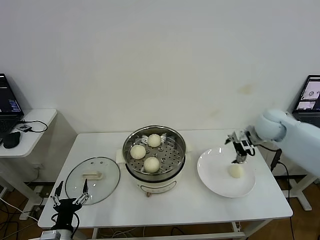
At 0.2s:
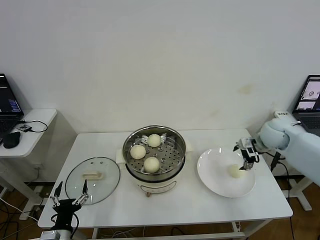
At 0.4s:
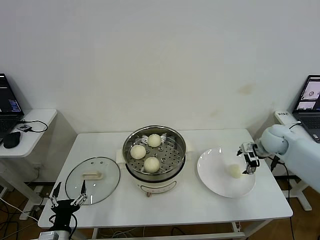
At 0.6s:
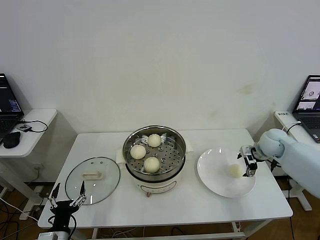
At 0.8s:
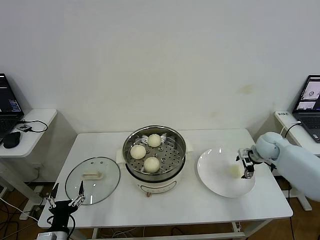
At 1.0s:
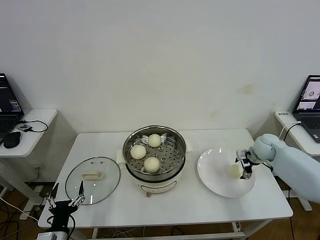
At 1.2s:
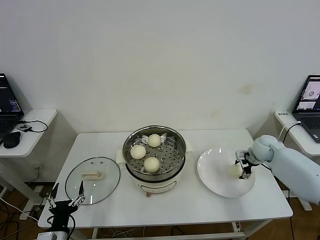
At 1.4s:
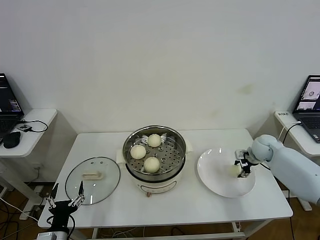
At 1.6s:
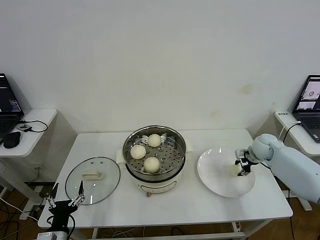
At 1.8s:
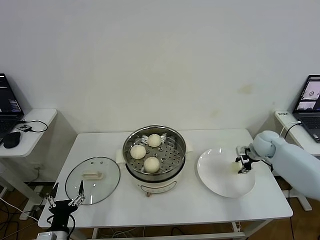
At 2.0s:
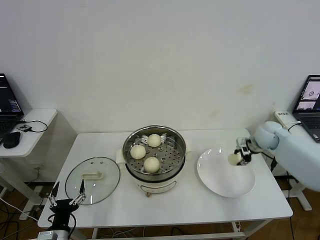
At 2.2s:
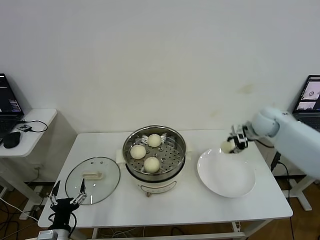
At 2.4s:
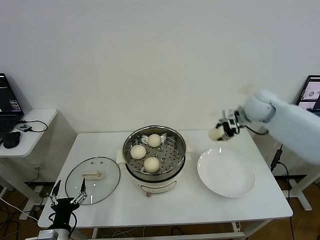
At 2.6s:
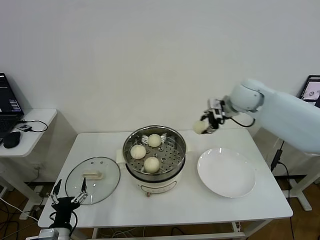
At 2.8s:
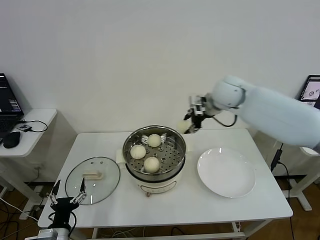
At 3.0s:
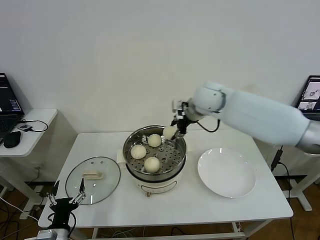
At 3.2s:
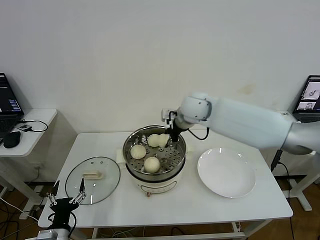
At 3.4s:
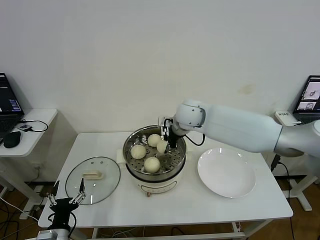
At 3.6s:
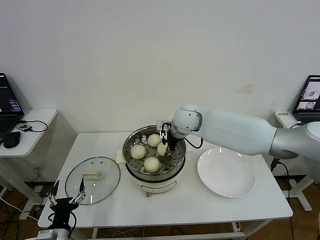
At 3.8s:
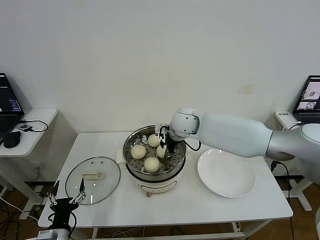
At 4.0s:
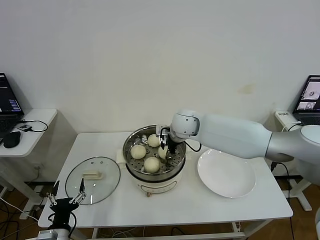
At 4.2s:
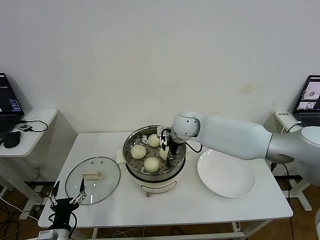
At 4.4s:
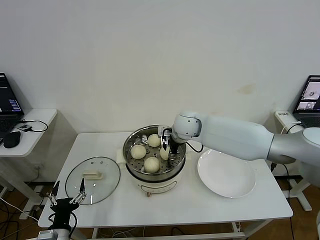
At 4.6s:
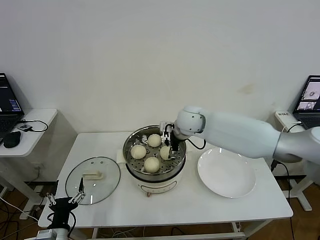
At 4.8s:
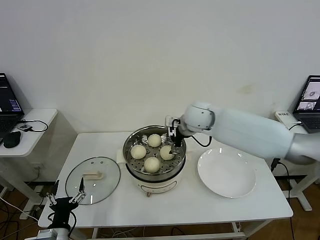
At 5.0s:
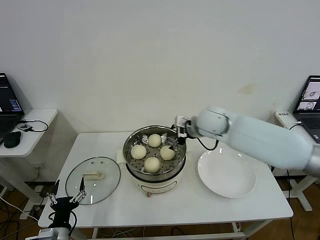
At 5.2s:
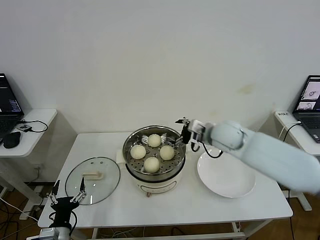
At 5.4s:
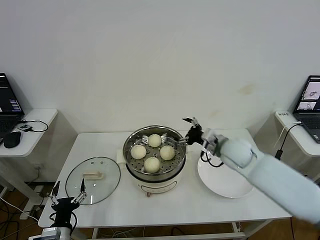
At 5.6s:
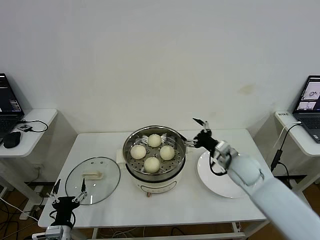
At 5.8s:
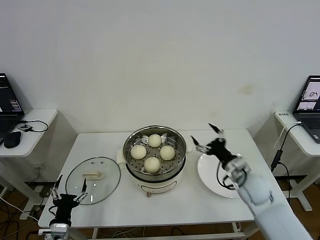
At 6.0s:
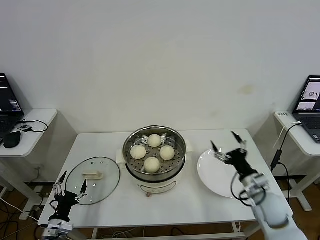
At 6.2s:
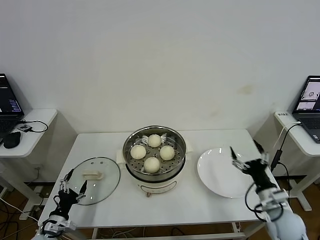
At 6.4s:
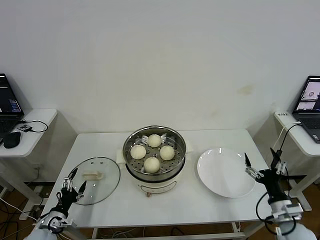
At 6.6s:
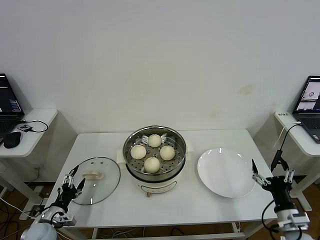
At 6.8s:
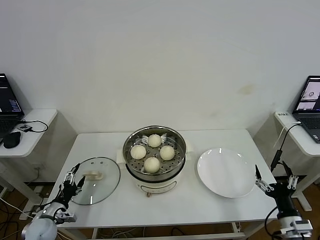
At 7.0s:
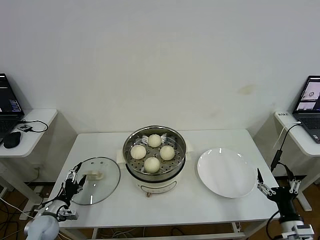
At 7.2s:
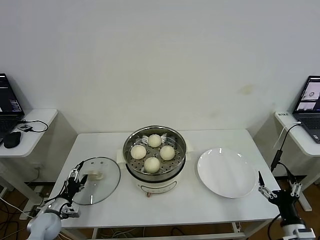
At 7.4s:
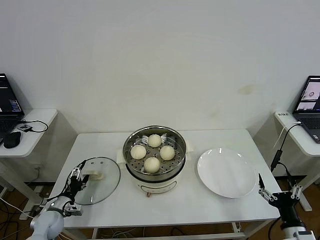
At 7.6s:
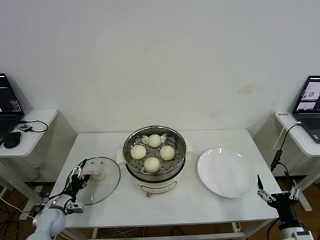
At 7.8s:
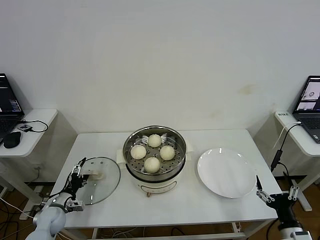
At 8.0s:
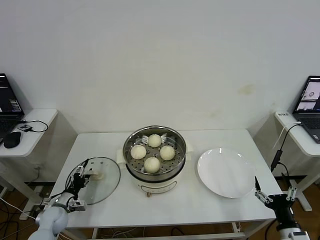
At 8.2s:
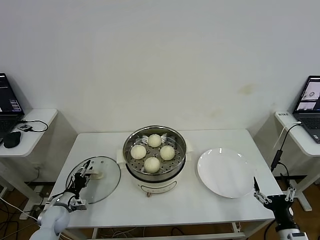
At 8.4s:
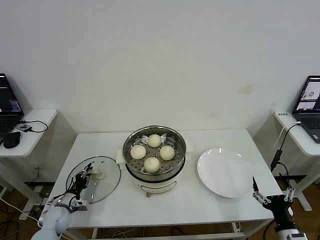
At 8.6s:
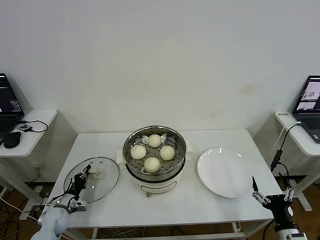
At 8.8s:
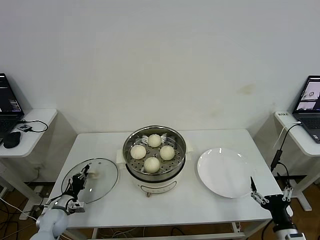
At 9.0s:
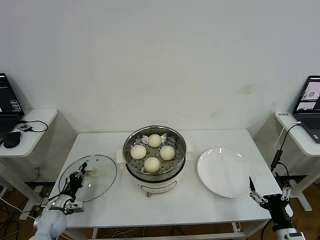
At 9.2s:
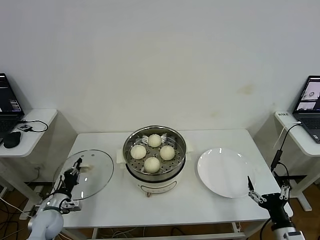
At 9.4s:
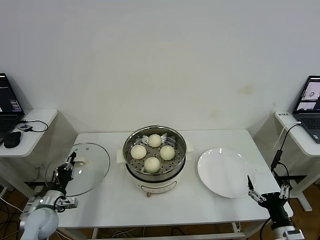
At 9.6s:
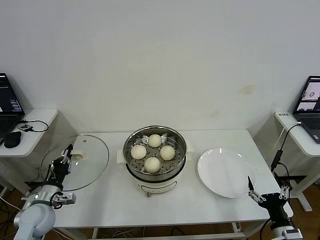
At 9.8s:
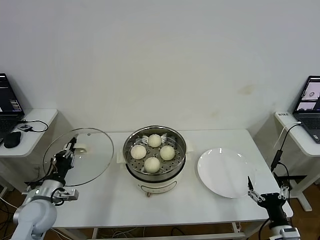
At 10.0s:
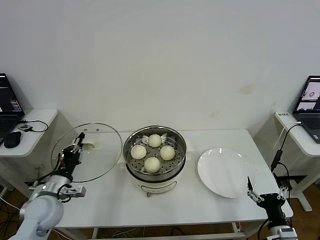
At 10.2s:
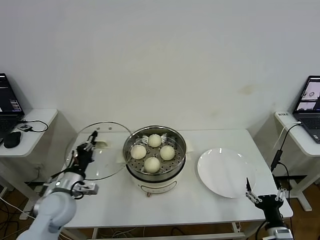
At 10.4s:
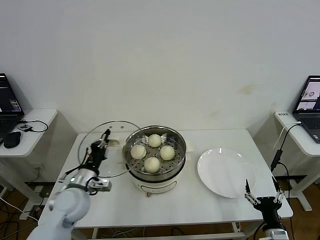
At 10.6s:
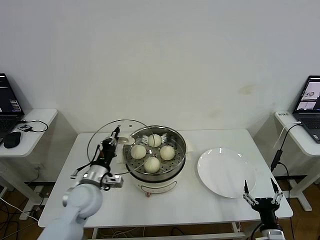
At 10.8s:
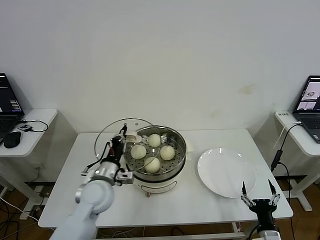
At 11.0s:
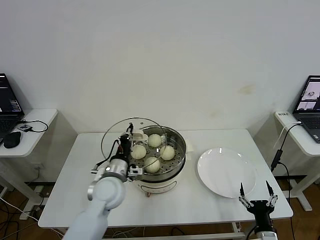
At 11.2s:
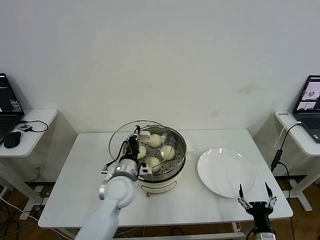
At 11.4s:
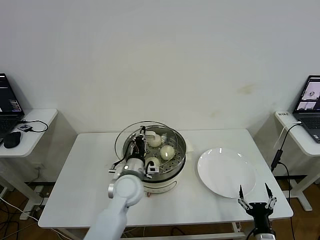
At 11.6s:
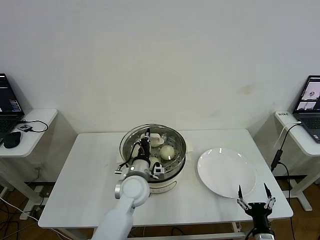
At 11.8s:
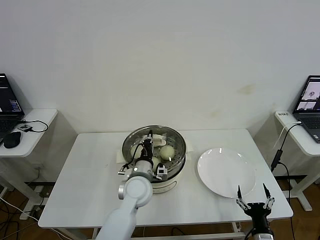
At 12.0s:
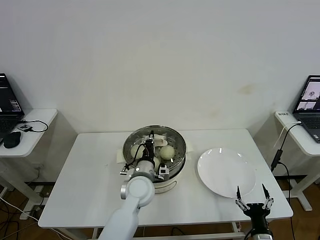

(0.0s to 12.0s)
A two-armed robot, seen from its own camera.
Step, 0.0s - 1.4s: Grasp the baozi in the plate with right gripper.
Step, 1.6s - 4.4s: Place the baozi on the steamer with right gripper.
Step, 4.6s - 8.4s: Grasp the pot lid with left gripper.
0.0s - 1.6s: The right gripper goes some 15 cm downward, and closes.
1.6s - 3.0s: The right gripper moves to the left and upward, roughly 35 cm.
3.0s - 4.4s: The right gripper travels downward and to the left by roughly 10 cm, and opens up.
4.4s - 6.0s: The left gripper moves some 5 cm. Meanwhile the right gripper shifts roughly 35 cm to the right, backward and downward.
6.0s - 7.6s: The right gripper moves backward and to the right, approximately 15 cm, while the left gripper is displaced forward and to the left by approximately 10 cm.
7.6s - 9.0s: The left gripper closes.
9.0s - 10.4s: The left gripper shifts some 25 cm upward and to the right.
10.4s - 12.0s: The left gripper goes some 20 cm to the right.

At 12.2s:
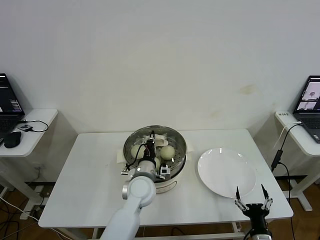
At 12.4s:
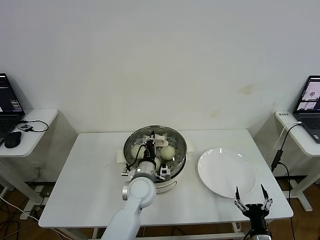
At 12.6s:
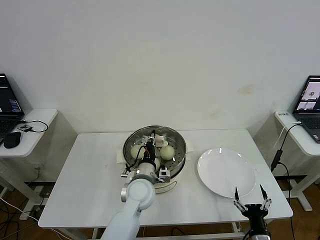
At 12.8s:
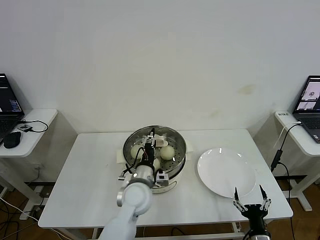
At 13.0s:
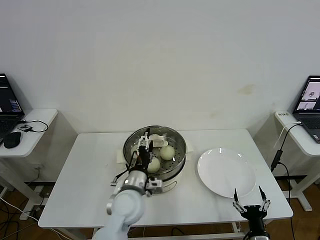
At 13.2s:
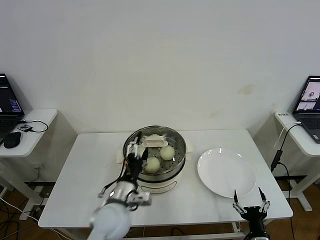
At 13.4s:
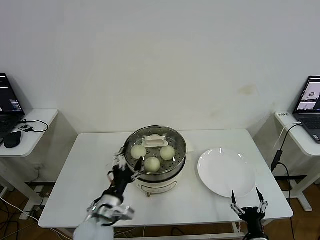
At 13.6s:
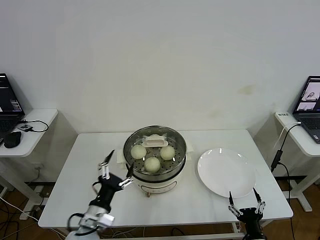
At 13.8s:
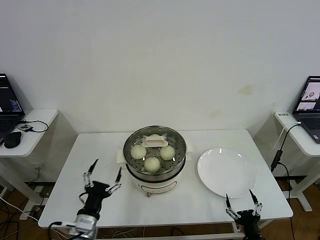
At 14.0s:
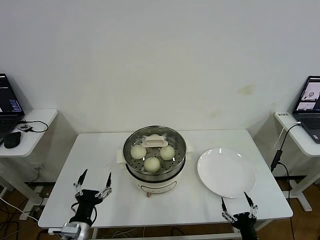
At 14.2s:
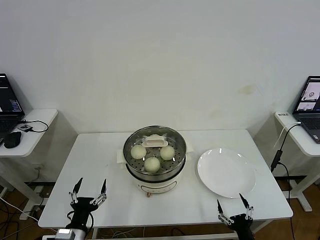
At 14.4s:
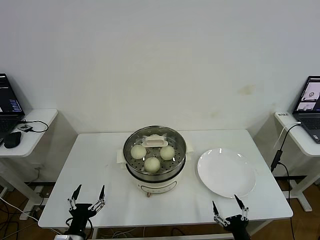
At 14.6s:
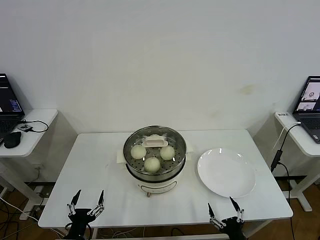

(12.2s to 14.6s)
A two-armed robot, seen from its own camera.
12.2s - 13.4s: The left gripper moves backward and to the left, approximately 15 cm, and opens up.
13.4s - 14.6s: The left gripper goes some 20 cm to the left, backward and downward.

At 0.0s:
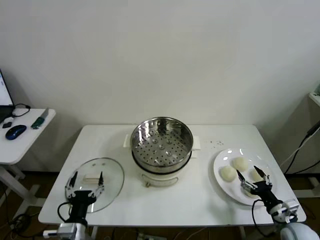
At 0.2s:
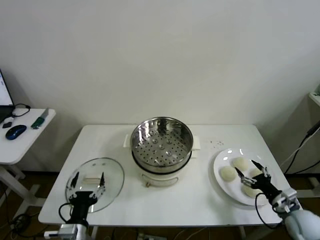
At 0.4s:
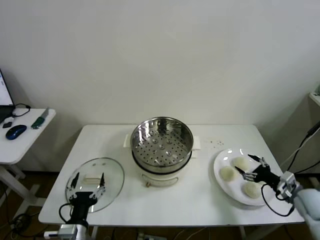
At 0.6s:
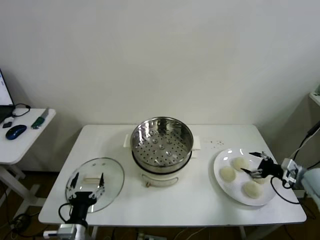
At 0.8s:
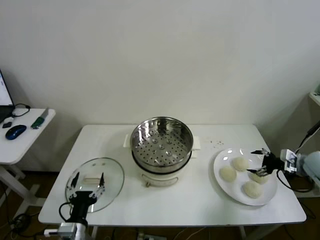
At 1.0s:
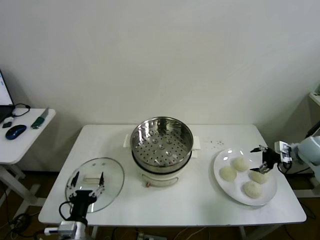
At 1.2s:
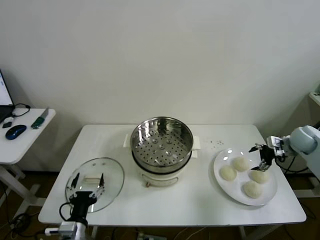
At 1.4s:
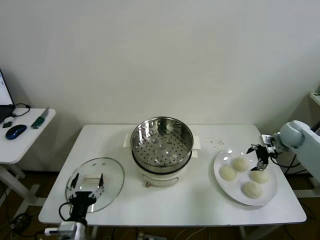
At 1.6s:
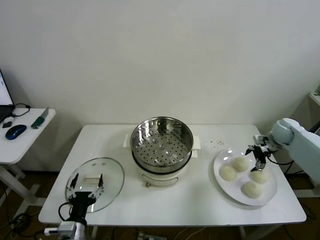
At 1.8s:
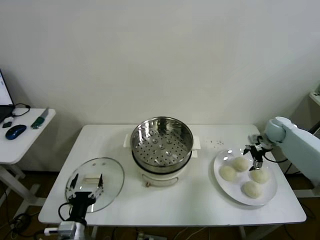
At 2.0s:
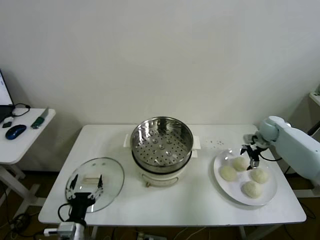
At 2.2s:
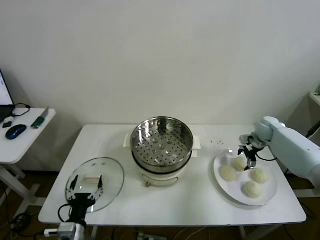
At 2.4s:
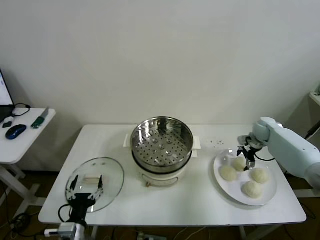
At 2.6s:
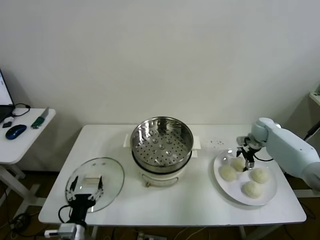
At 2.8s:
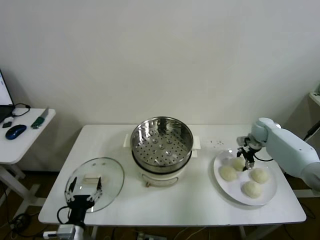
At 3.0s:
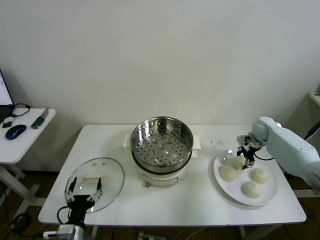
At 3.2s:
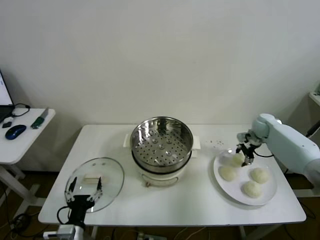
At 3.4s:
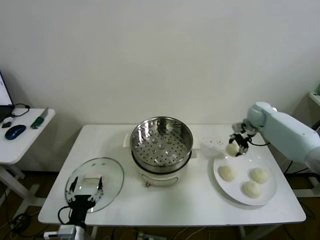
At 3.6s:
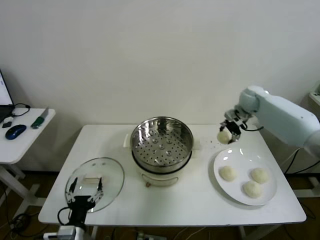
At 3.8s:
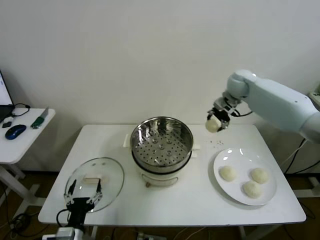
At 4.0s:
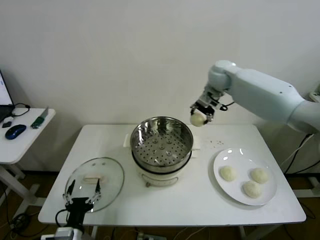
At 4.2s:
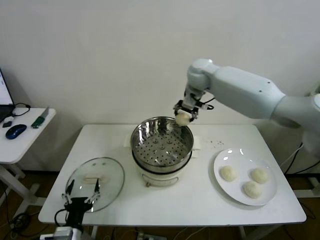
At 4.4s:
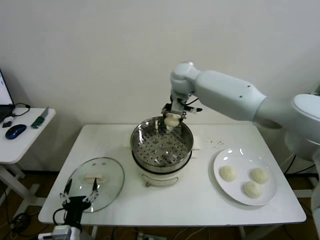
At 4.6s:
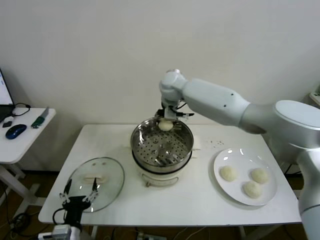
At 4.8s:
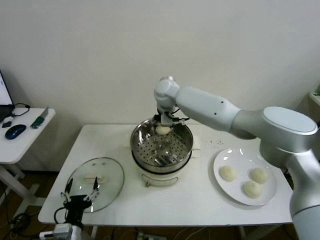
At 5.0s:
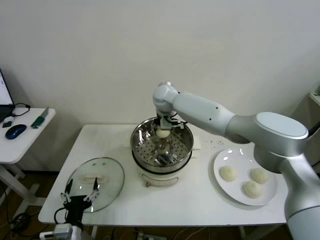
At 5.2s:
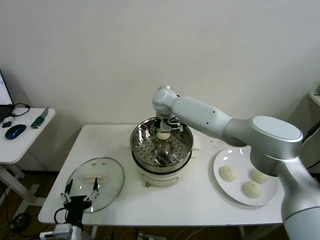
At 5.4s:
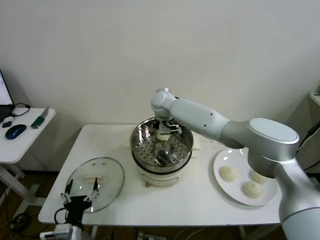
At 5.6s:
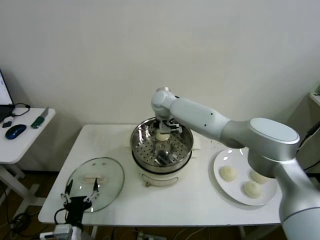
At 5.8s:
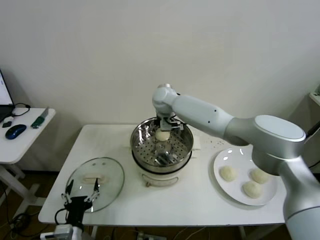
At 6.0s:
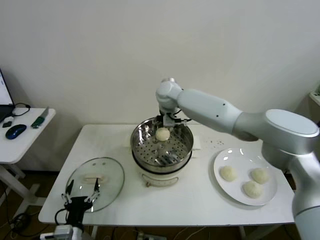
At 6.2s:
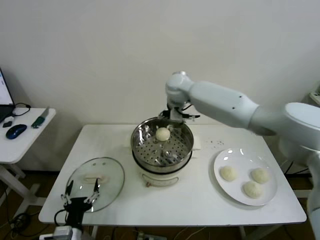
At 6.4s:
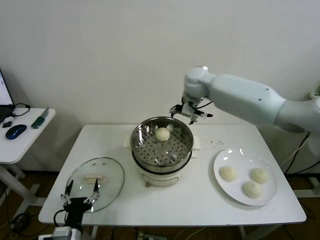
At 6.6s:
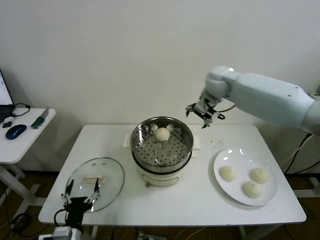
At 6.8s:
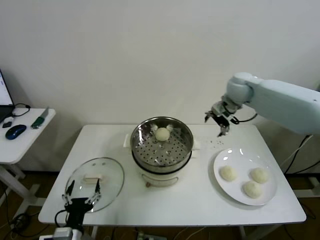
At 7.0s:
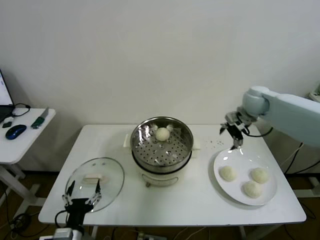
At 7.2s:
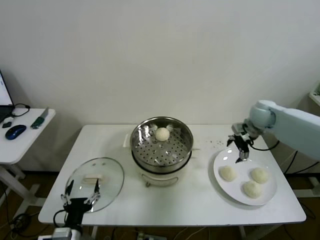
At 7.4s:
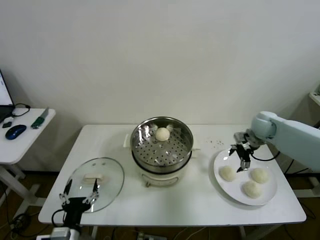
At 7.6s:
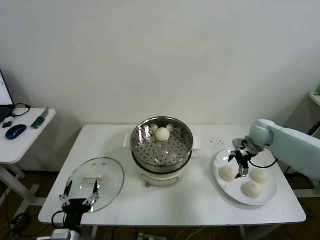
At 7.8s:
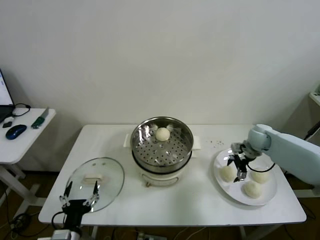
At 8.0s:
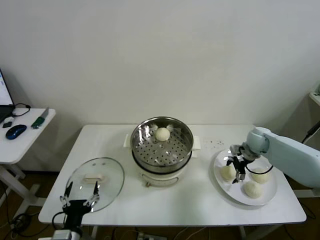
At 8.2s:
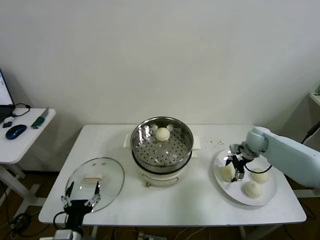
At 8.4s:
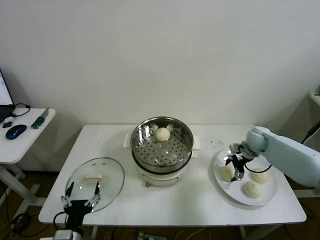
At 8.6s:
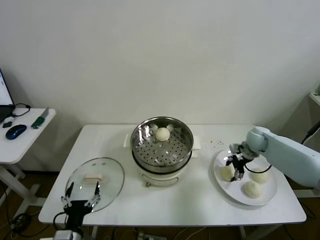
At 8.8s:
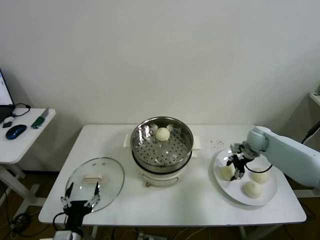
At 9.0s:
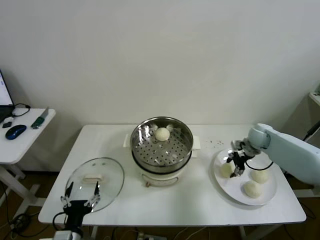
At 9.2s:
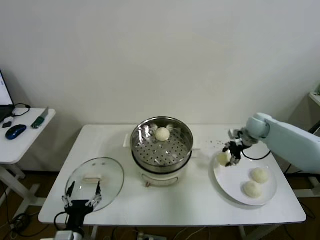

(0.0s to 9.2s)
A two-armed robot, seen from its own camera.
Step, 0.0s - 2.6s: Grasp the baozi in the plate with right gripper.
Step, 2.8s - 5.2s: Place the baozi on the steamer with right gripper.
Step, 5.4s - 8.6s: Grasp the baozi in the plate with right gripper.
1.6s - 3.0s: The right gripper ends up approximately 5 cm from where it was, and closes its fingers.
3.0s - 4.6s: The right gripper is displaced to the left and upward by approximately 40 cm.
4.6s - 6.2s: The right gripper travels downward and back again, some 10 cm each way, and opens its fingers.
6.2s - 7.6s: The right gripper goes approximately 35 cm to the right and downward.
7.6s - 9.2s: The right gripper closes.
